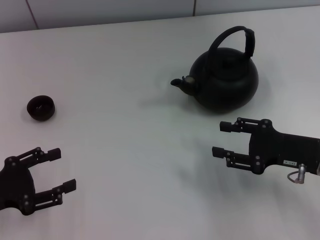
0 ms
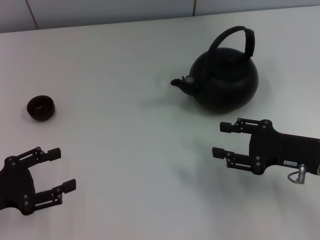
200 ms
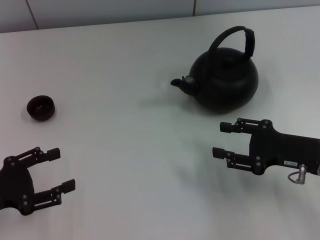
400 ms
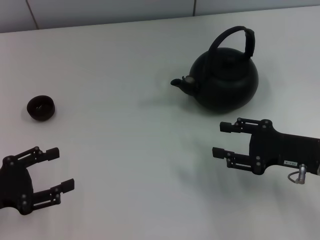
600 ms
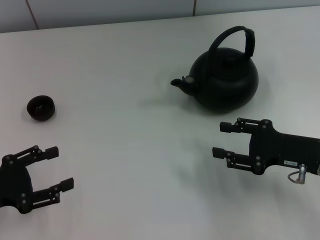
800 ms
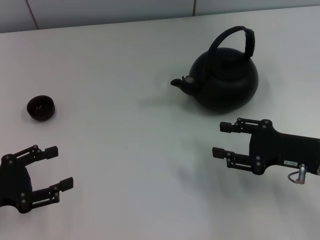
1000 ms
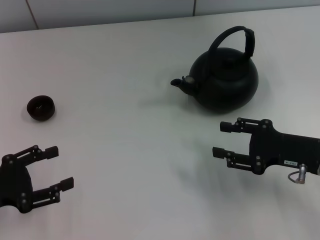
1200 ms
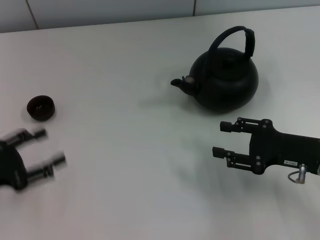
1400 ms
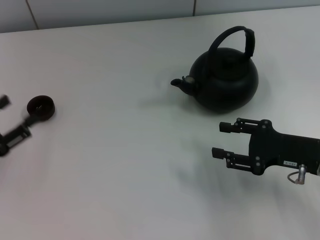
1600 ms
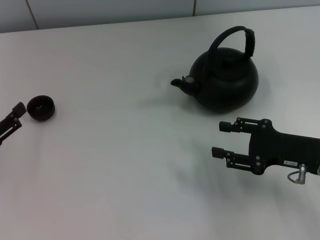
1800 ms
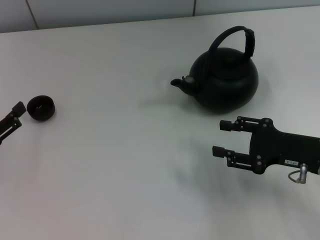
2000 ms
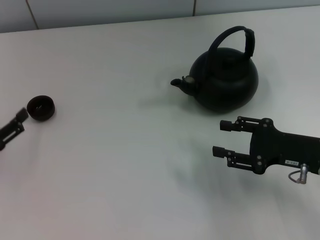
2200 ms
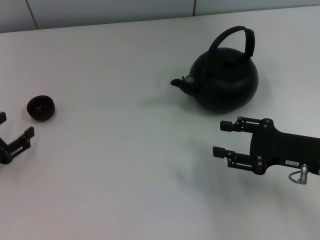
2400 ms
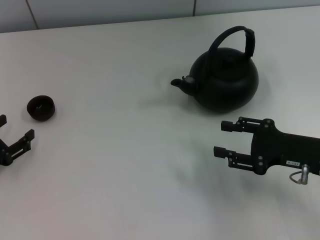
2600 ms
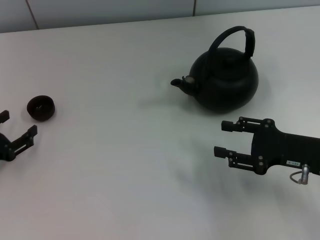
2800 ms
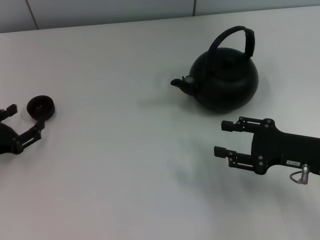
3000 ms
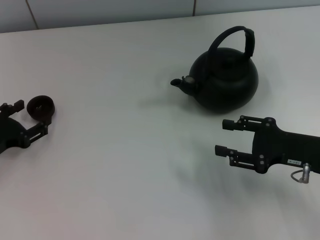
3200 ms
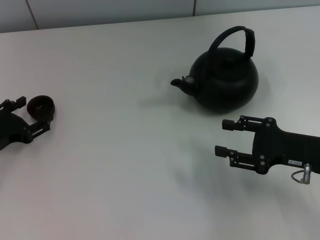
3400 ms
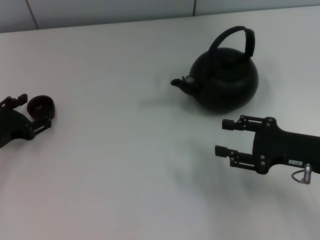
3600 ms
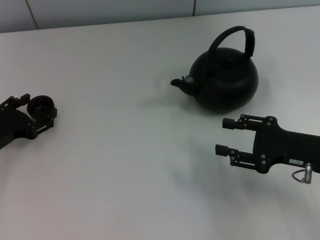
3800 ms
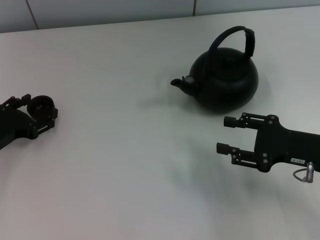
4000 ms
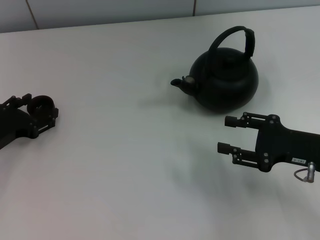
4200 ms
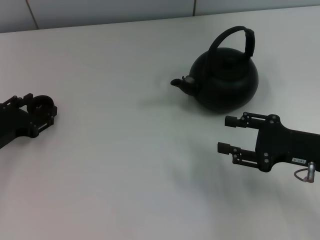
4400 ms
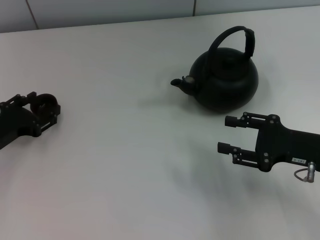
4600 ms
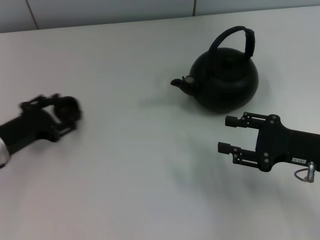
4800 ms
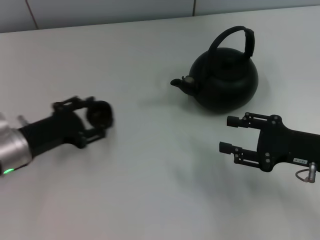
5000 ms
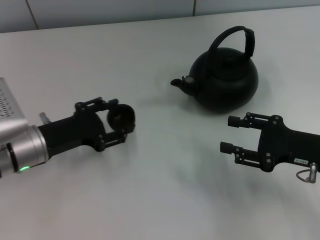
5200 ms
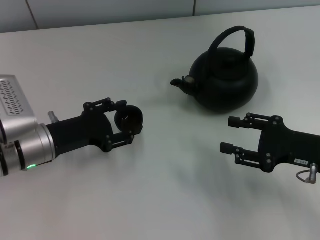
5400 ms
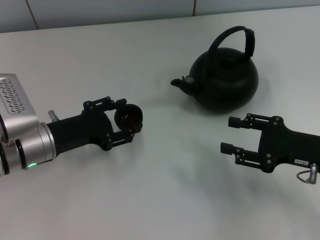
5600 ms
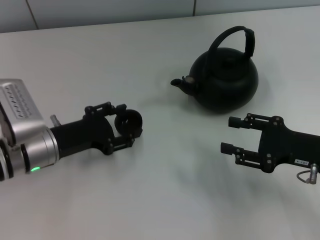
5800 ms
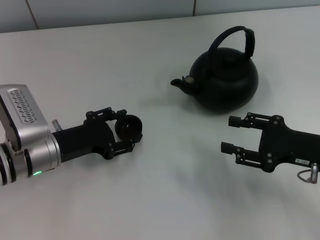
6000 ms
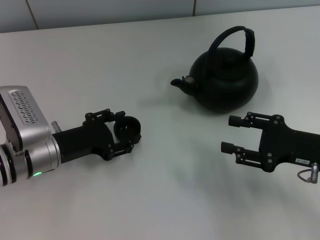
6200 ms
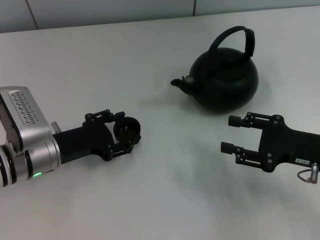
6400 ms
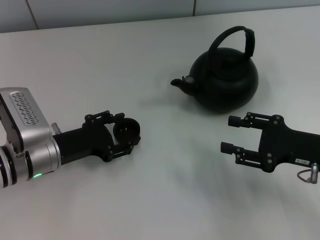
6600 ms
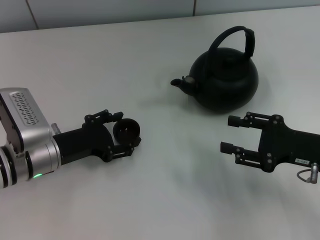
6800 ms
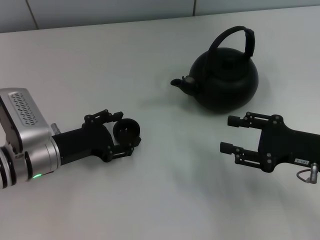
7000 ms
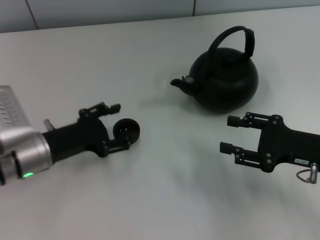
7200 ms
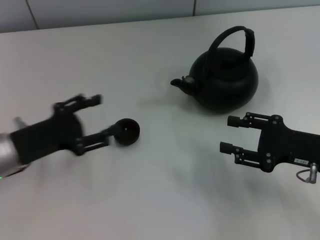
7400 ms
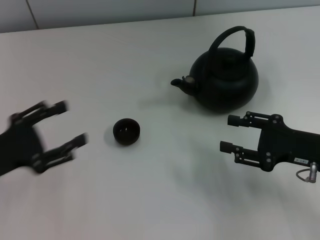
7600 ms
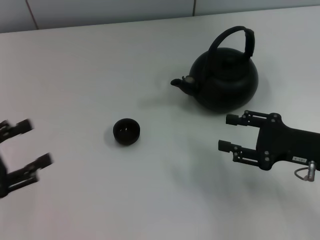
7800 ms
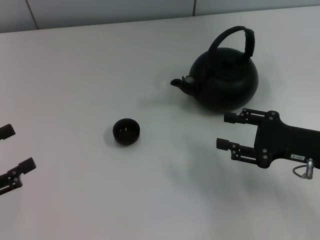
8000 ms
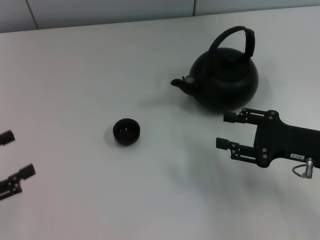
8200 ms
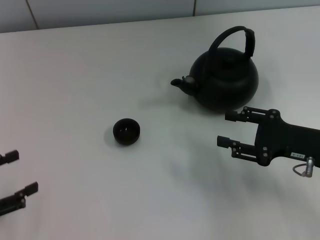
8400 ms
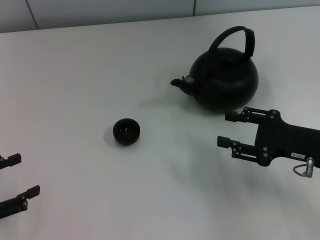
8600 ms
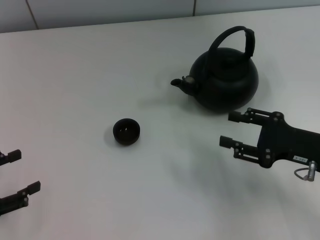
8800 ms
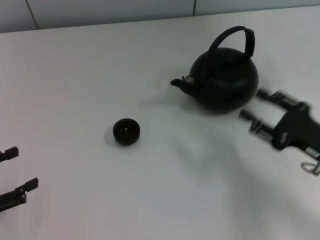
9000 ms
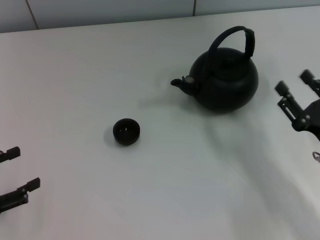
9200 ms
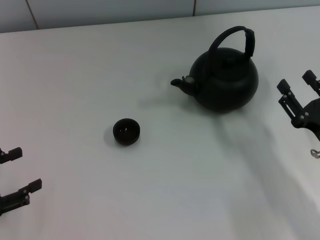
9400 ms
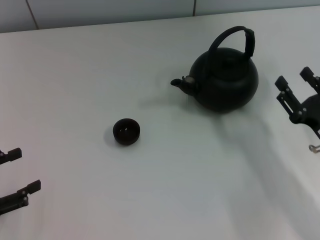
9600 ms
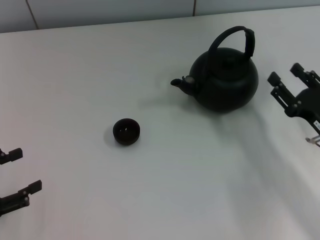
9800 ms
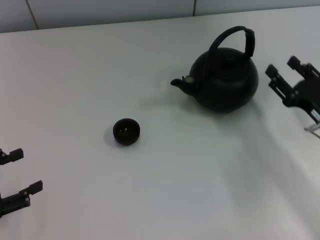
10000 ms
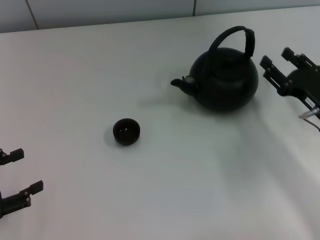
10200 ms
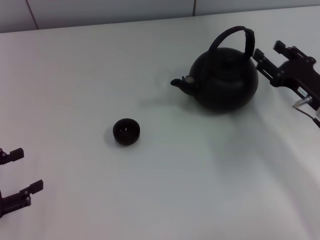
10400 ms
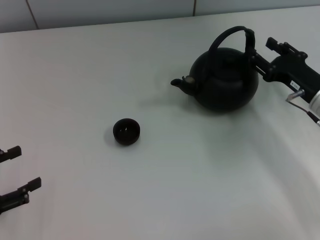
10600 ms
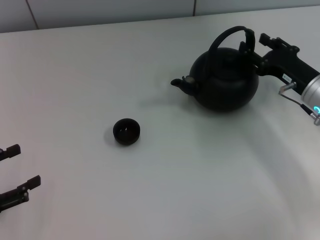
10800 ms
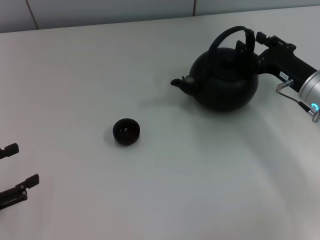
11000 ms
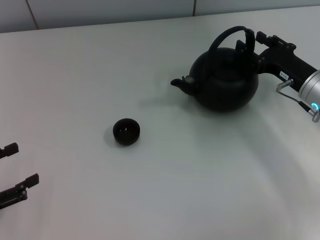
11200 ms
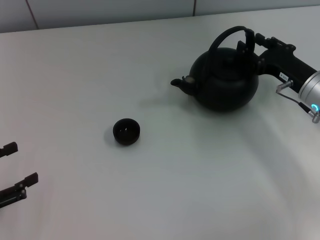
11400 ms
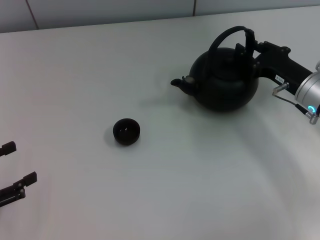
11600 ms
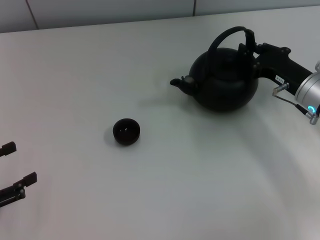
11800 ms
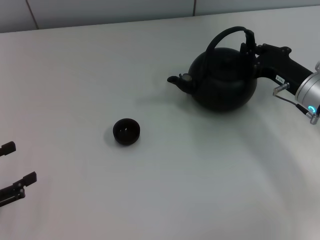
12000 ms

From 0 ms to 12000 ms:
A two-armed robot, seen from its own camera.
Task of the whole recording: Grasp the handle of the teapot with one hand and pour tea into the teacup.
Step, from 0 ms to 4800 ms: Pick up the teacup with the left gripper.
Step, from 5000 ms to 7600 ms: Place the teacup in the center of view with the left gripper.
From 1600 ms to 3000 ms: The grippers move only a little.
From 3000 ms to 4400 ms: The grippers stay close to where they were, moving slightly.
From 4400 ms to 6000 ms: The left gripper goes roughly 10 cm to the right.
From 6000 ms to 7600 ms: The left gripper moves to the left and backward, roughly 10 cm.
From 7600 ms to 9000 ms: The left gripper shifts about 5 cm to the left.
From 9000 ms to 10400 ms: The right gripper is displaced forward by some 10 cm.
From 10400 ms to 12000 ms: The right gripper closes.

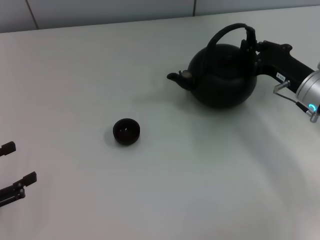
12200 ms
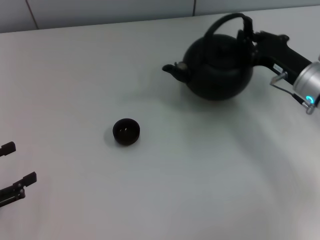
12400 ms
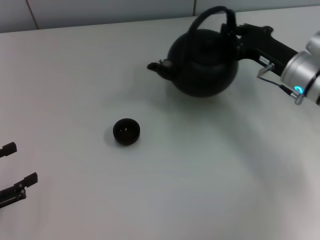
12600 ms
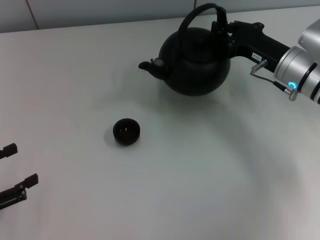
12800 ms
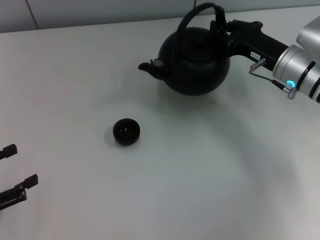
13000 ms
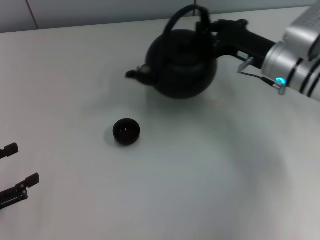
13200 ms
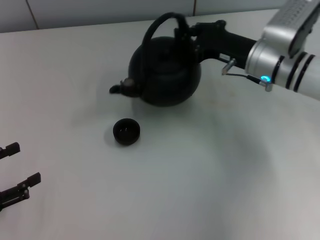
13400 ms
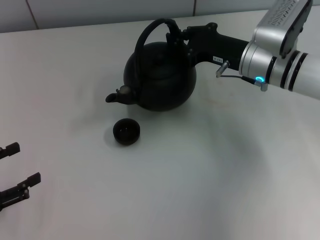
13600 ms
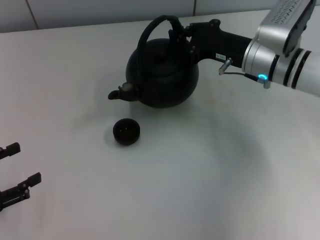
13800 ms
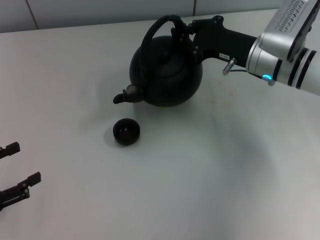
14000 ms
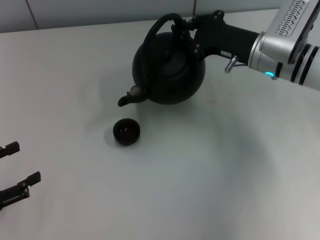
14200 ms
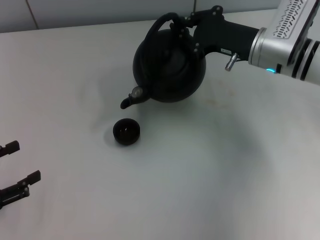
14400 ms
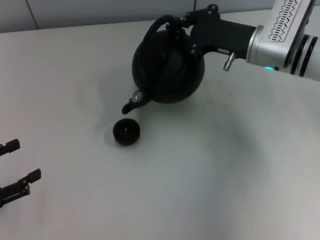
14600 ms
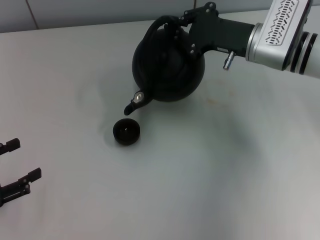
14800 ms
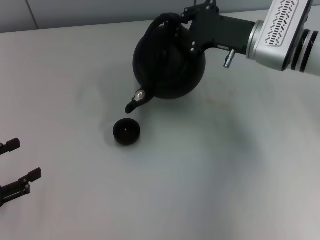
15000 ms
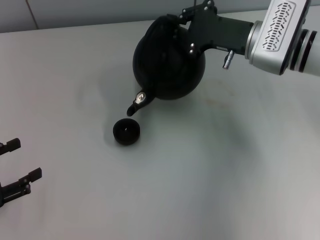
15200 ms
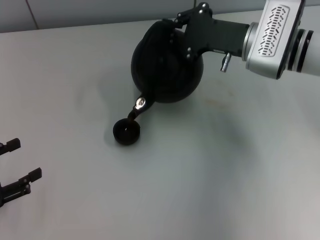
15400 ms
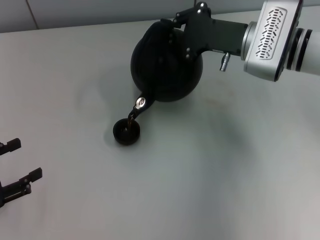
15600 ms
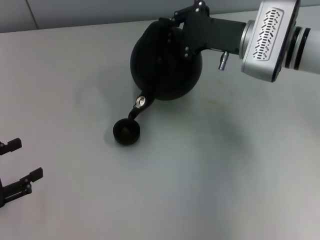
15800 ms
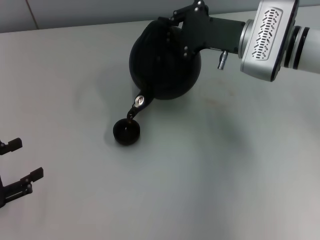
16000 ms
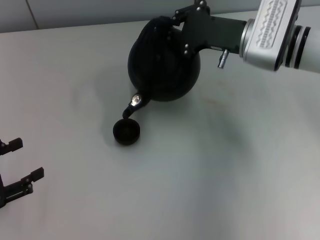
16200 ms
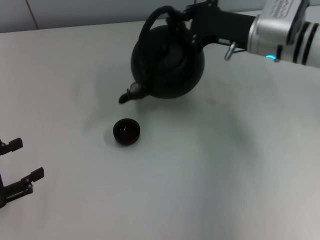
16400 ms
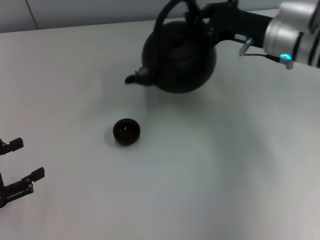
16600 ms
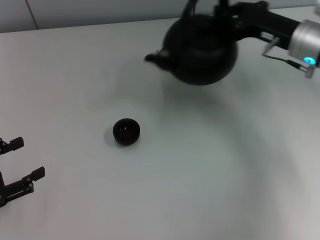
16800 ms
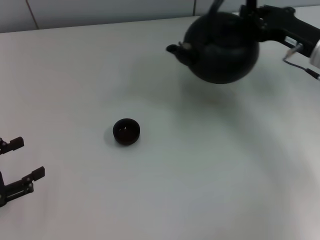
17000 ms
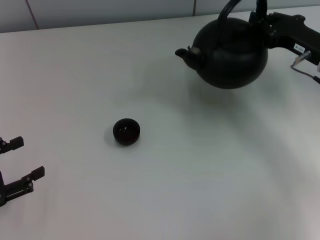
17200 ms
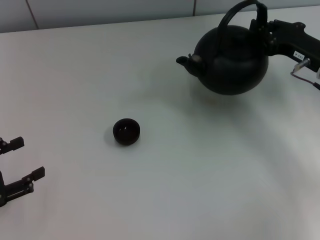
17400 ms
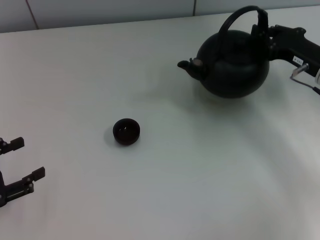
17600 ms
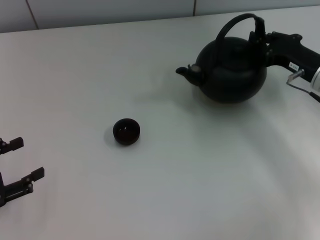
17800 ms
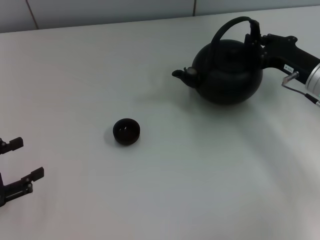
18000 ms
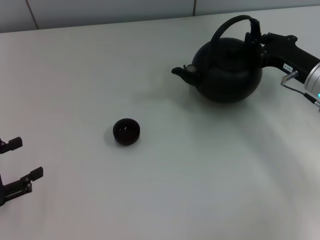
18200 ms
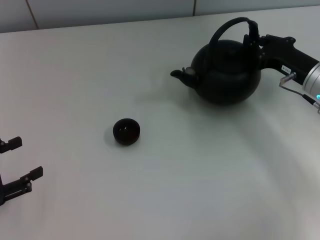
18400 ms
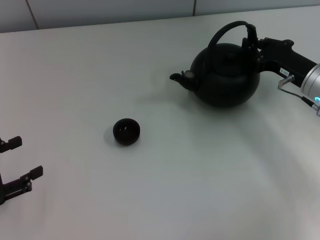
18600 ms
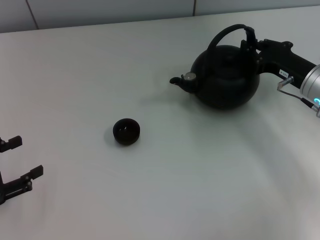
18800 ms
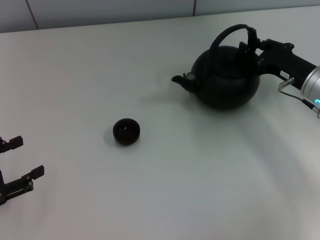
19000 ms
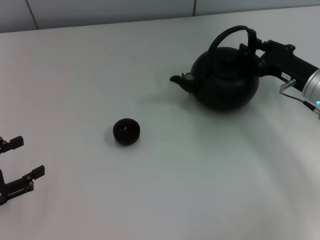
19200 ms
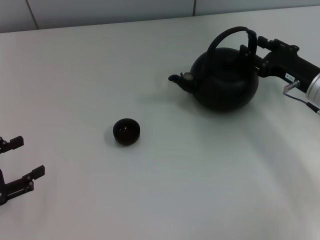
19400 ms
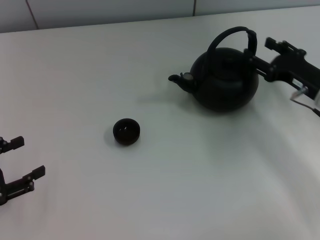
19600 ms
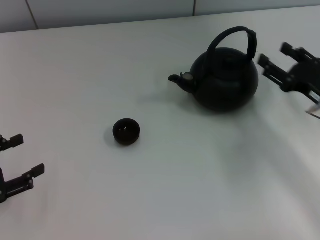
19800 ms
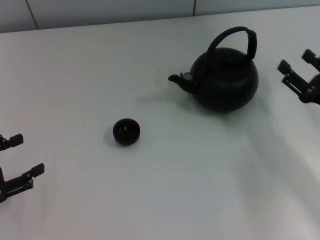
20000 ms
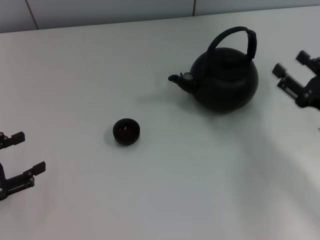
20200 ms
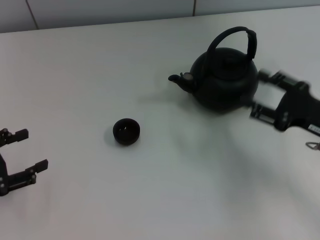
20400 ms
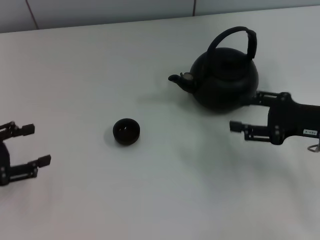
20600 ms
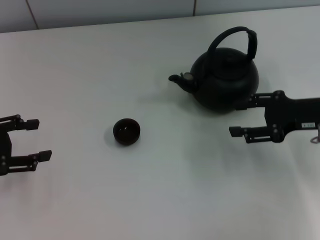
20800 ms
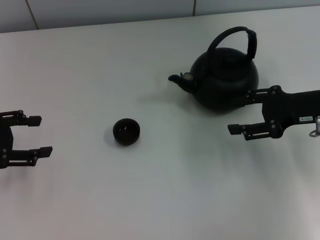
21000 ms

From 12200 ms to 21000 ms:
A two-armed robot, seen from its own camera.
Task of the whole recording: Grasp the handle of the teapot with one hand and pour tea into the teacup.
Step, from 17000 ms to 20000 ms: Put down the teapot with the right gripper.
From 12200 ms to 13600 ms: The right gripper goes approximately 10 cm to the left and forward.
From 16600 ms to 18000 ms: The right gripper travels to the right, downward and backward by about 10 cm.
From 18000 ms to 19600 ms: The right gripper opens.
From 19600 ms to 21000 ms: The left gripper heads forward and upward, covering some 10 cm, while the right gripper travels upward by approximately 5 cm, and moves roughly 10 cm backward and comes back.

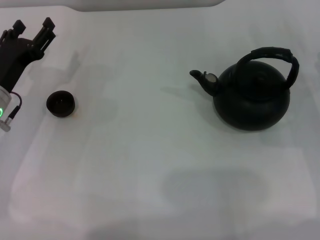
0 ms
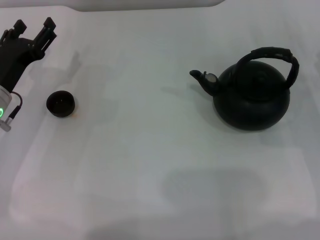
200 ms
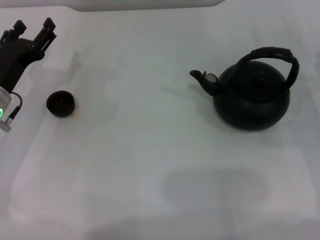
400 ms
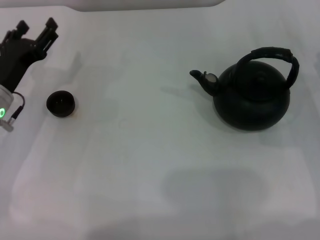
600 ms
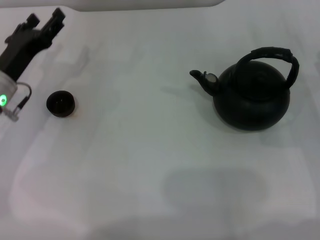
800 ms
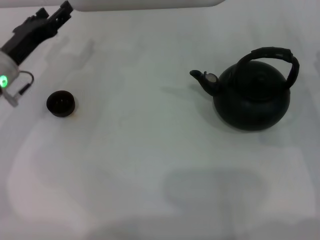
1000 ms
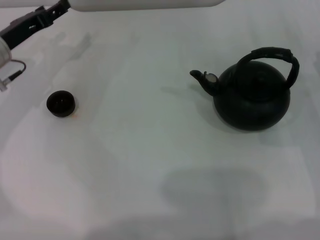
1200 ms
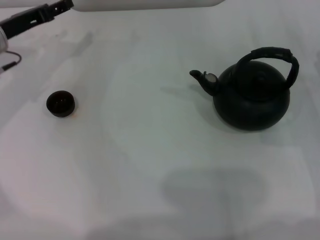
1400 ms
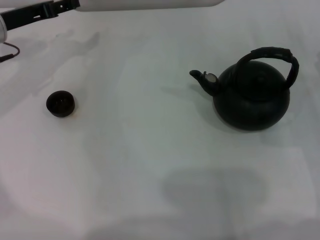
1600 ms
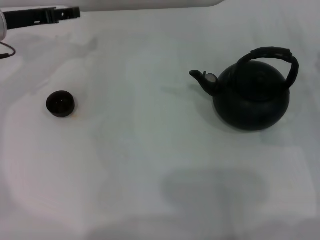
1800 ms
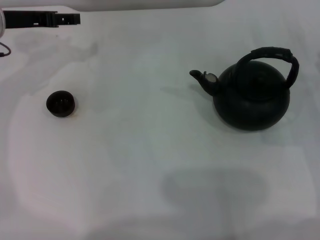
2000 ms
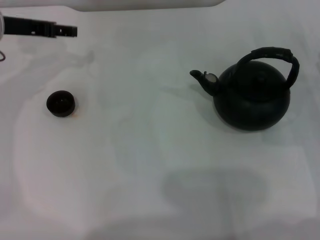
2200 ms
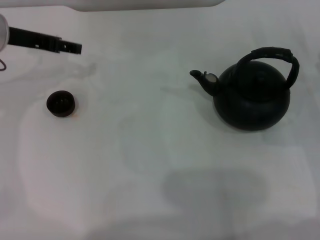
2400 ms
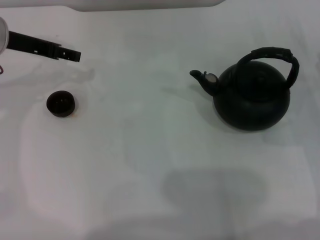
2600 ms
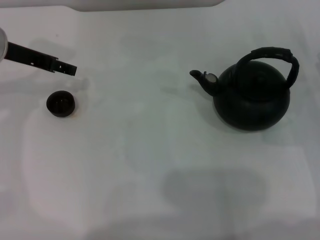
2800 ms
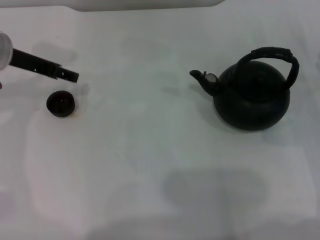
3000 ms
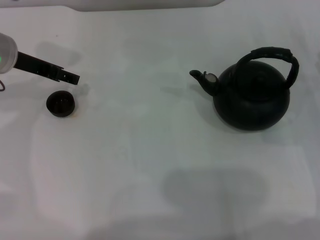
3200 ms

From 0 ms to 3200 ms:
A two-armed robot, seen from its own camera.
Task of the whole recording: Grasp the handle of the teapot with one hand and pour tea into the teacup.
From 0 ms to 1600 ms: The left gripper is displaced forward and upward by about 15 cm.
